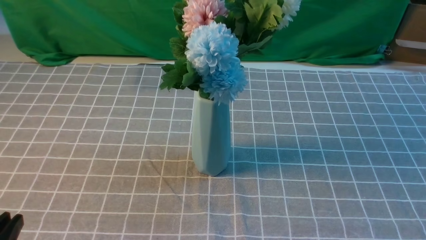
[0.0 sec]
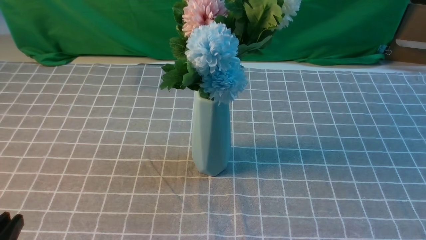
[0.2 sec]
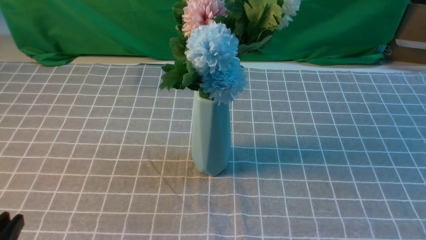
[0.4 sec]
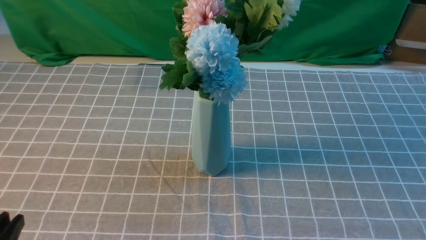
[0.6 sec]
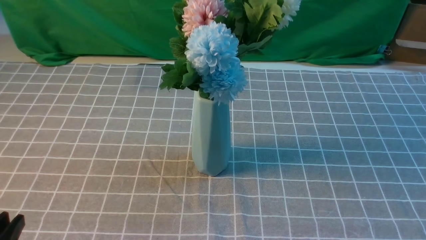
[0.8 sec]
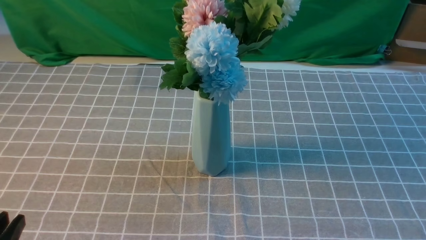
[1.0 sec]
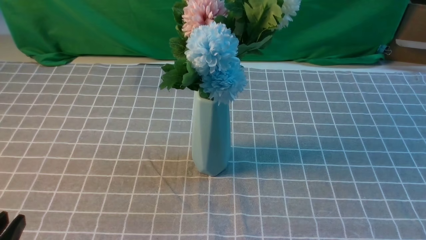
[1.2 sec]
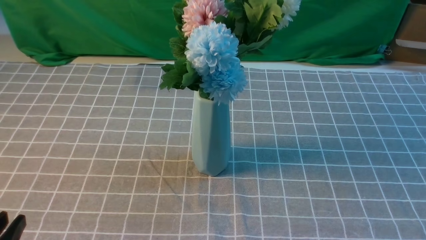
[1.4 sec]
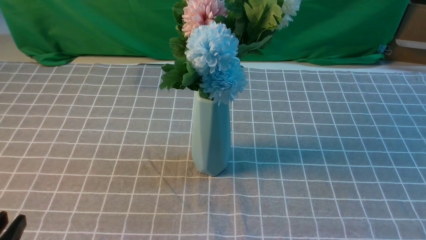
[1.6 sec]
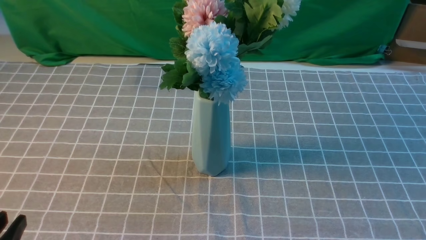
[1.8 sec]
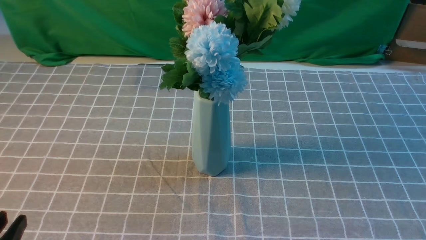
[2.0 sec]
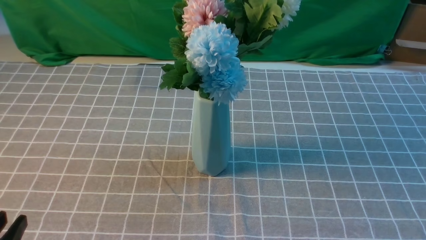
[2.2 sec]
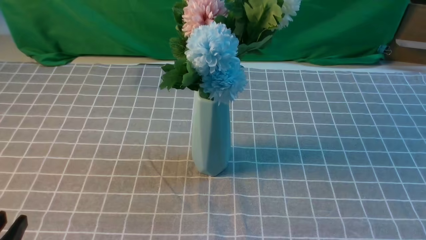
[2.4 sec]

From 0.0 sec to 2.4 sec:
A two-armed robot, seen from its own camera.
Task of the whole recording: insert the flowers into the vase on the table with the grey tablecloth.
From 1.2 sec to 2.4 sec: Both grippers stay about where they are.

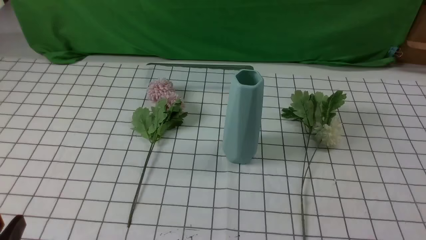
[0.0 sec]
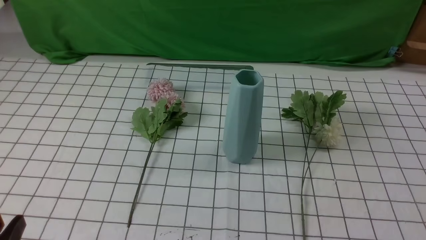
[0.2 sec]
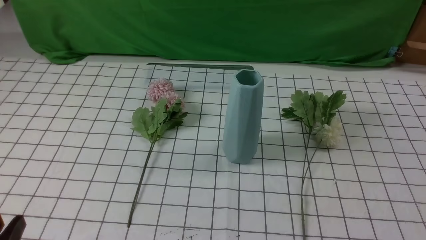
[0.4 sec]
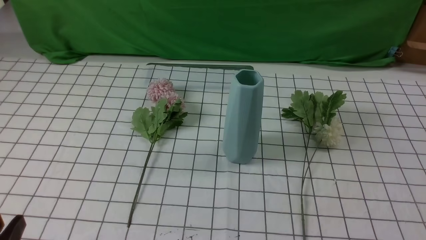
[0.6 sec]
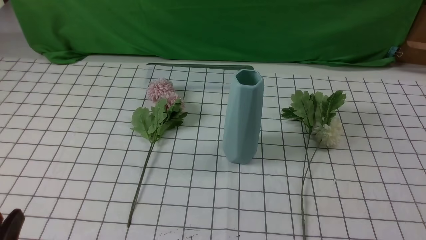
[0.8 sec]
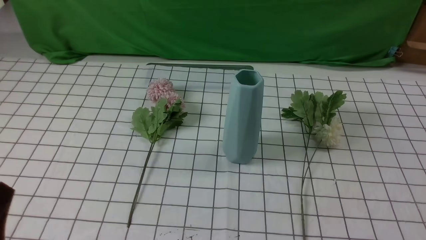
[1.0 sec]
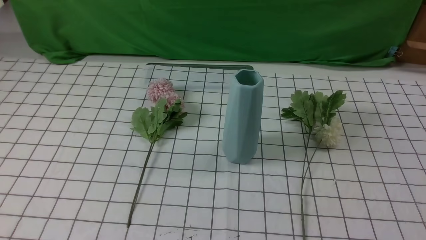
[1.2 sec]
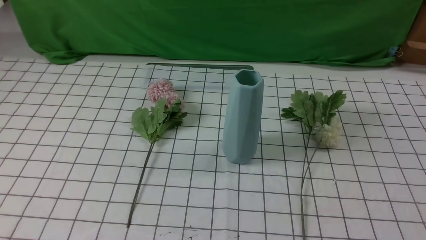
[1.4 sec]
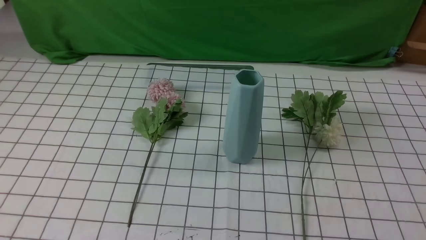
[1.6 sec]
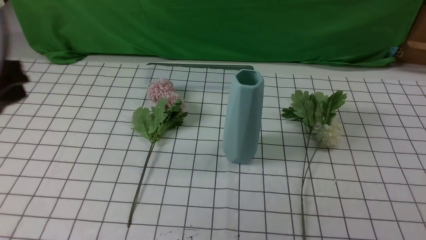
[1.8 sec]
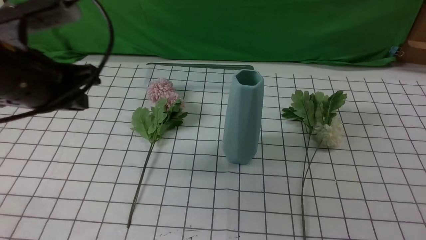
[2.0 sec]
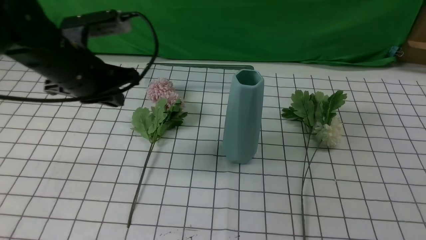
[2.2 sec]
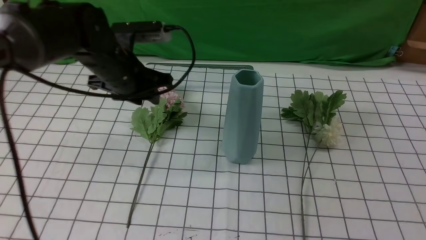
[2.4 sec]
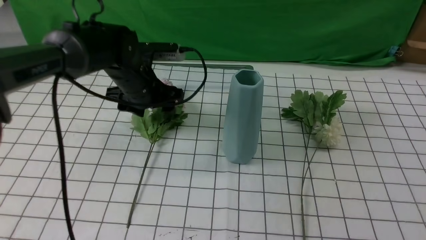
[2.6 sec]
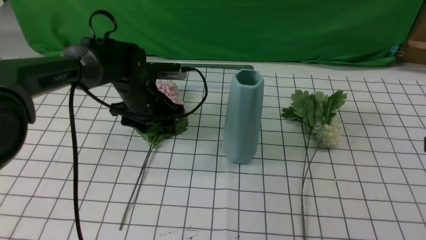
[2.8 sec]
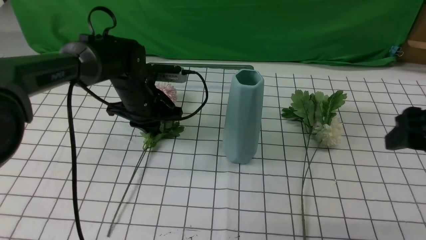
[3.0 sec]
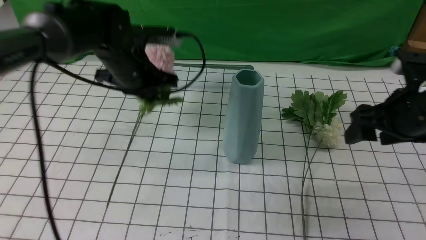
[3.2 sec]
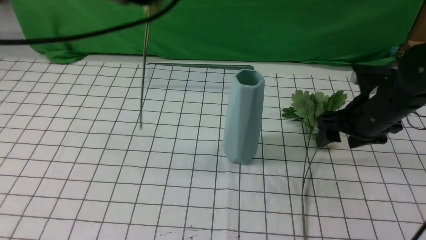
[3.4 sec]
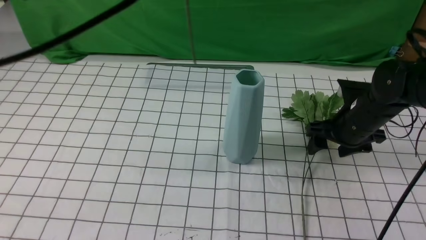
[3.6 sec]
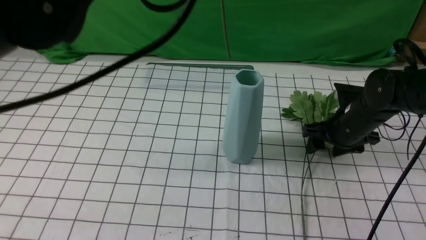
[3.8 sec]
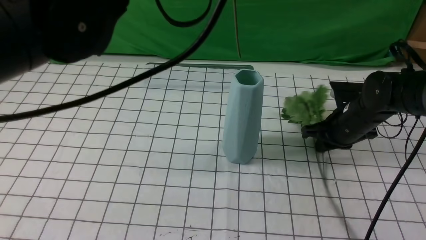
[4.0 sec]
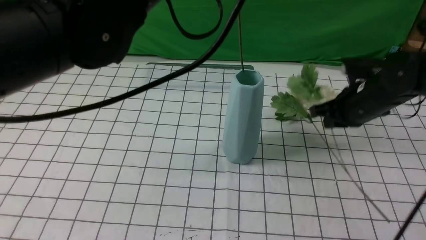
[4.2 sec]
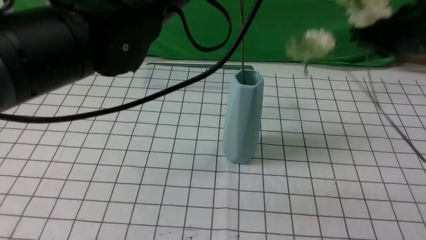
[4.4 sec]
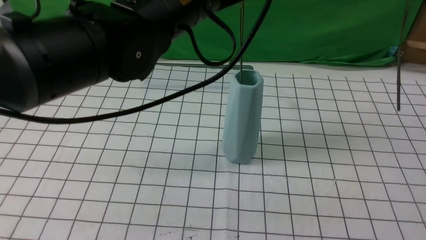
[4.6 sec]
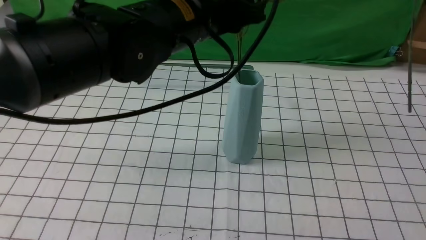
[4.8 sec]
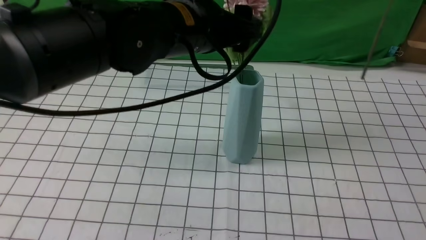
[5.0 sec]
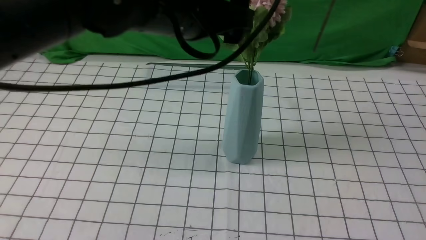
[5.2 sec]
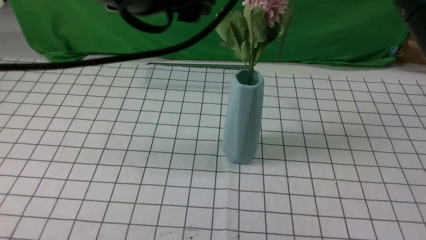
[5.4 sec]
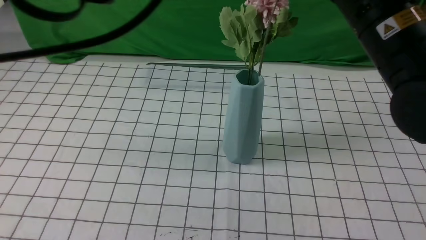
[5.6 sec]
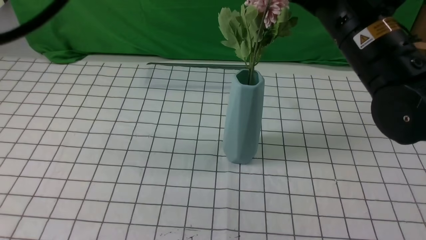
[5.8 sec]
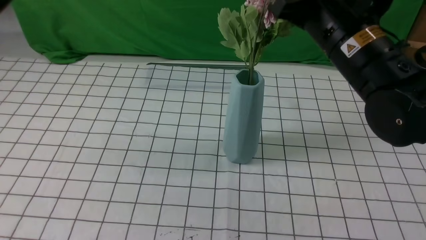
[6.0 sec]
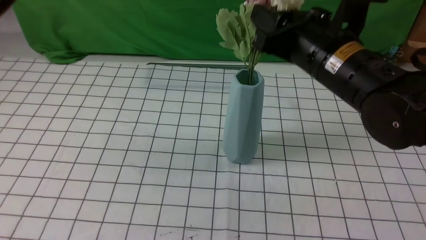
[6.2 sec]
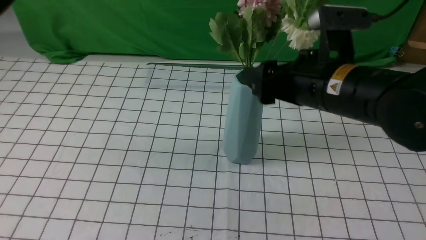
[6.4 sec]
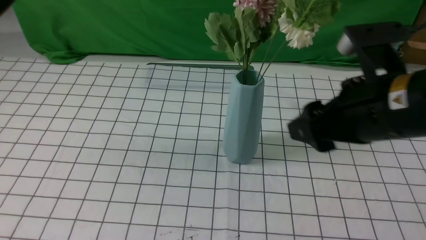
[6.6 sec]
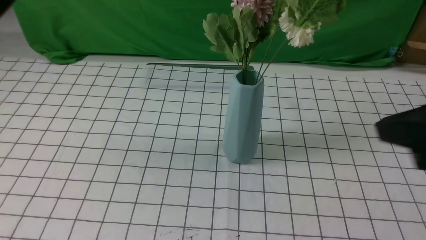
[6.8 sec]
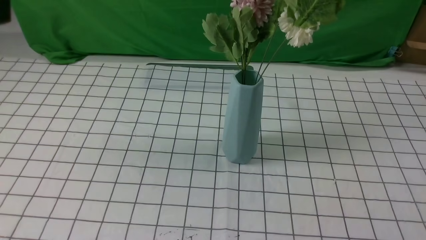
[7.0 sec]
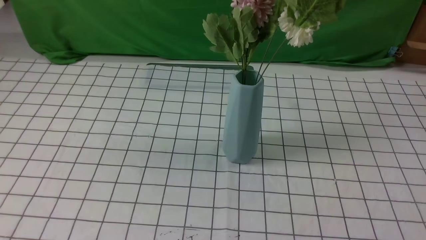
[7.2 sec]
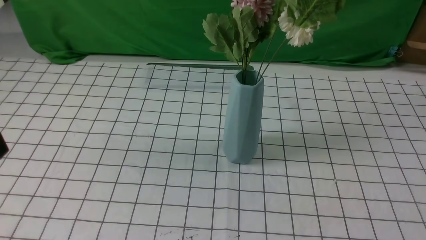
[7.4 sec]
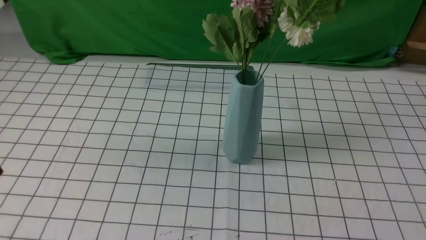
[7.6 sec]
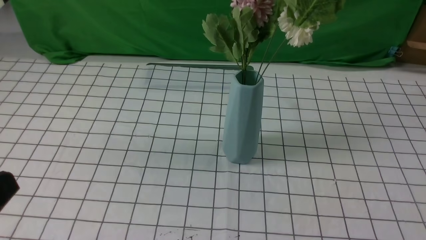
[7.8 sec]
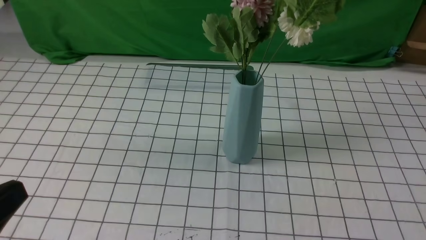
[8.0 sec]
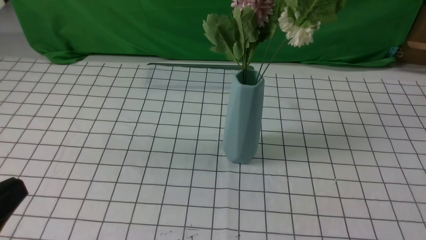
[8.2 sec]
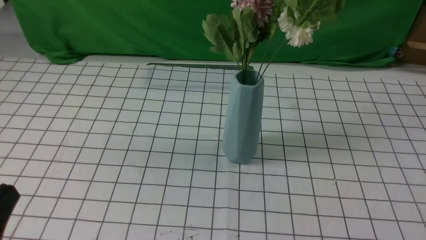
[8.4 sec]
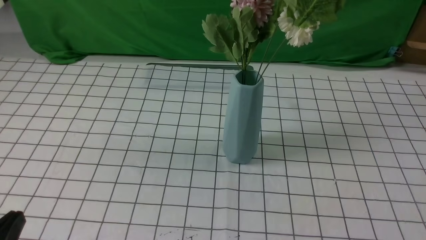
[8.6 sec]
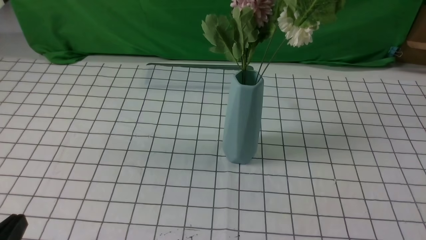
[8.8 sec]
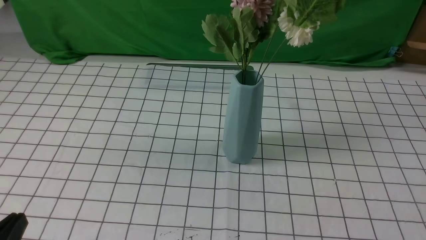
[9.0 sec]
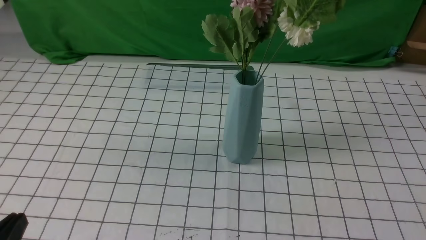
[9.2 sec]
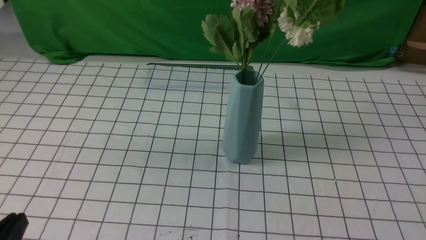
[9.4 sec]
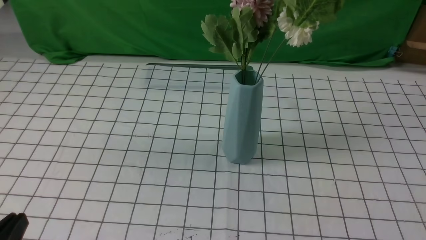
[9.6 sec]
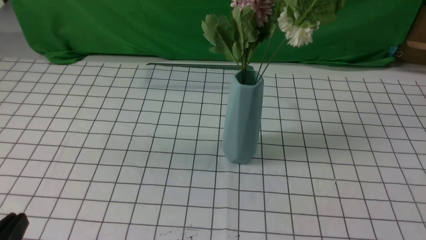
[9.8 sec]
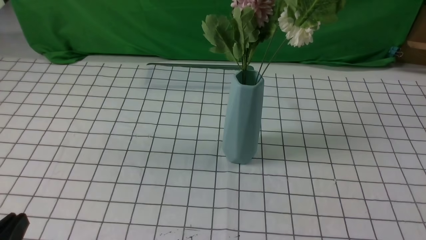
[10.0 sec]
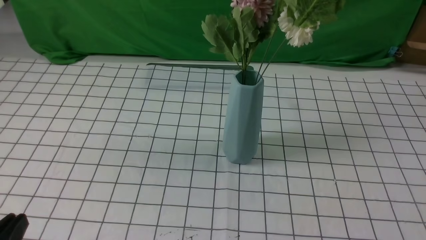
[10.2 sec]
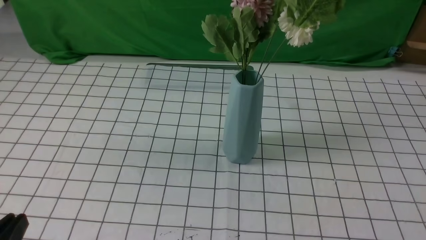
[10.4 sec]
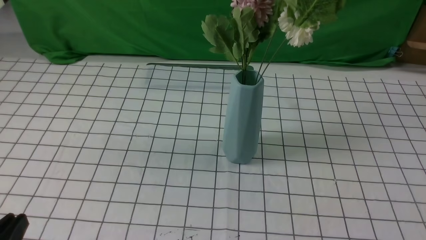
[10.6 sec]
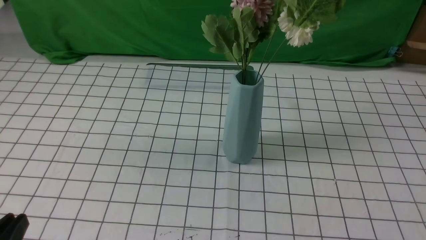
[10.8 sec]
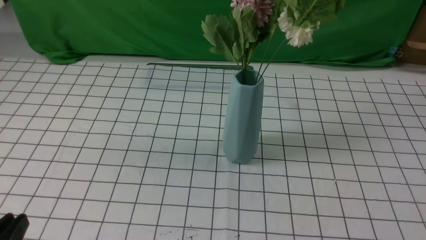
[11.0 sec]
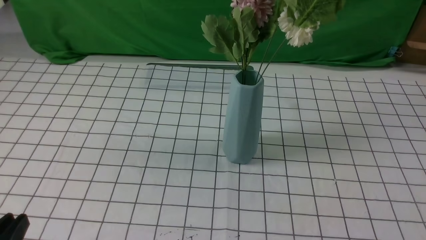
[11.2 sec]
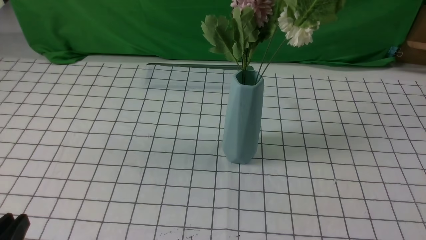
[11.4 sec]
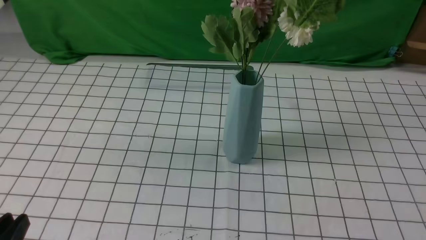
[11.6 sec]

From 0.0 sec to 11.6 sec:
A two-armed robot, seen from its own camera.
Task of the whole recording: insert the flowers into the vase on the table with the white tablecloth.
Step, from 0.0 sec to 6.4 sec: Put the flowers in the vase with both hands.
From 1.4 sec to 2.8 sec: The left gripper goes some 40 cm forward, and opens. Meanwhile the right gripper goes roughly 20 cm forward and upward, and opens its fingers.
From 2.8 sec to 4.4 sec: The left gripper moves upward and backward, about 25 cm, and closes. Meanwhile the right gripper is displaced forward by about 15 cm, goes downward and returns, approximately 20 cm each way, and closes.
From 4.4 sec to 5.8 sec: The left gripper is displaced backward, to the left and upward by roughly 20 cm, and opens, then closes once more. Meanwhile the right gripper goes some 10 cm to the left.
From 5.8 sec to 7.2 sec: The left gripper travels backward, downward and to the left by some 15 cm; the right gripper moves backward and to the right, roughly 30 cm, and opens, then closes once more.
From 10.2 sec to 11.6 sec: The two grippers keep their place.
